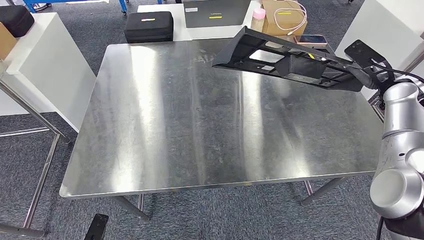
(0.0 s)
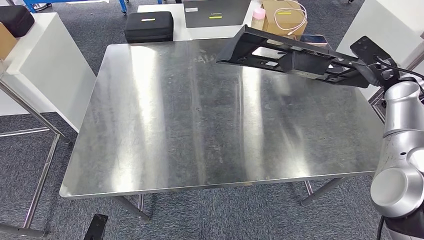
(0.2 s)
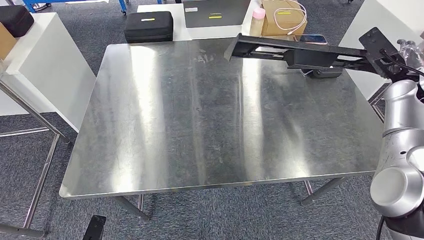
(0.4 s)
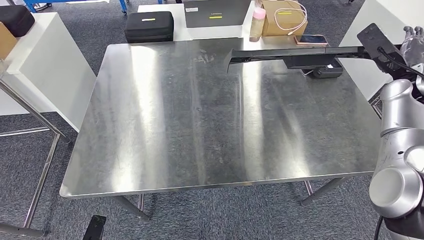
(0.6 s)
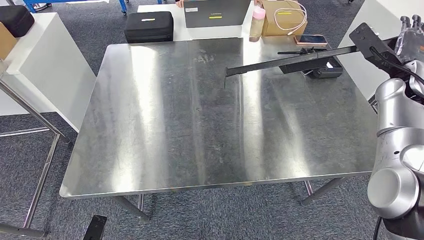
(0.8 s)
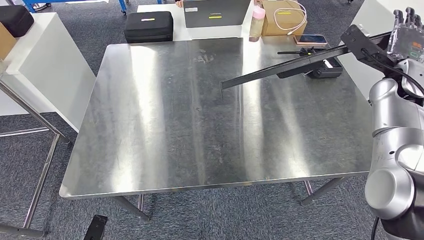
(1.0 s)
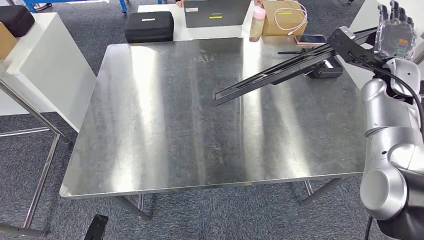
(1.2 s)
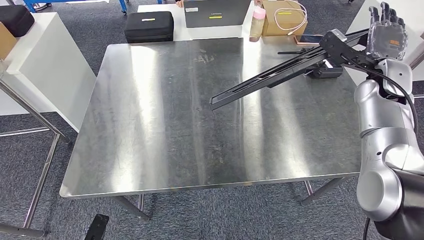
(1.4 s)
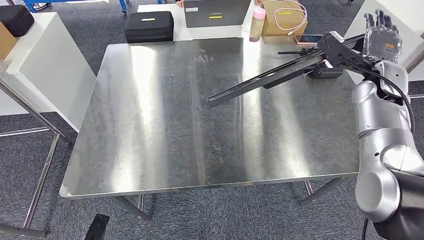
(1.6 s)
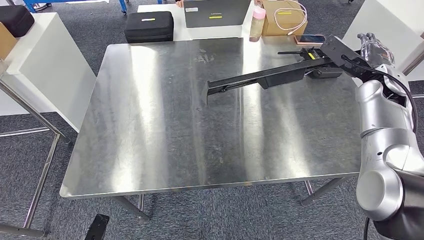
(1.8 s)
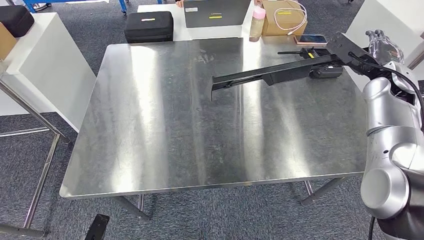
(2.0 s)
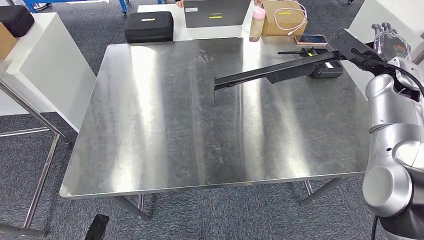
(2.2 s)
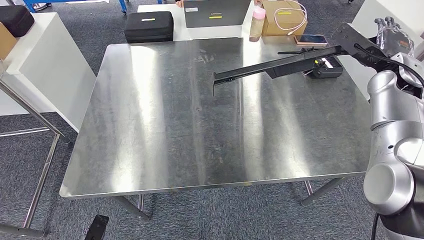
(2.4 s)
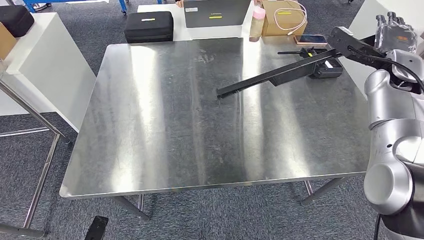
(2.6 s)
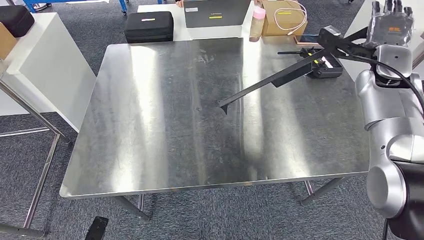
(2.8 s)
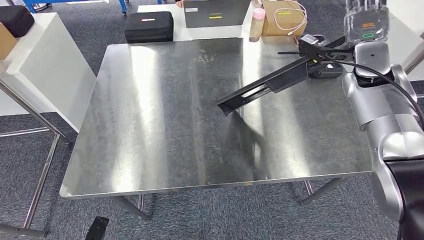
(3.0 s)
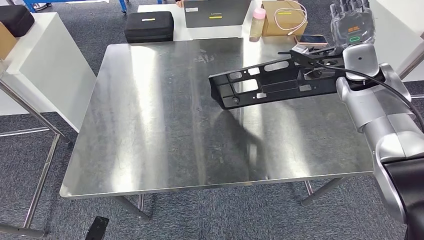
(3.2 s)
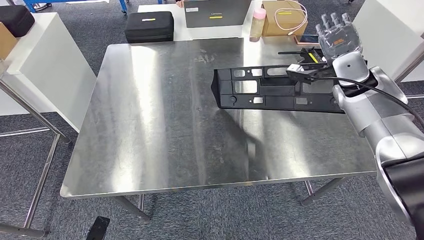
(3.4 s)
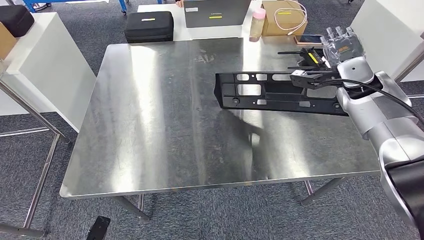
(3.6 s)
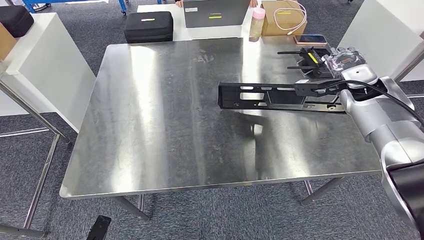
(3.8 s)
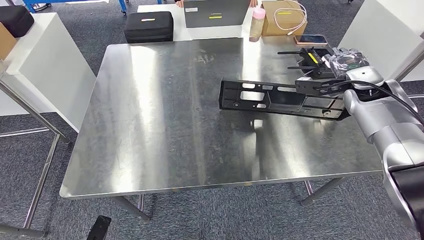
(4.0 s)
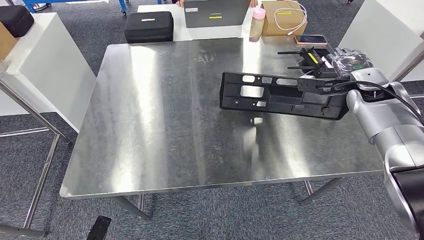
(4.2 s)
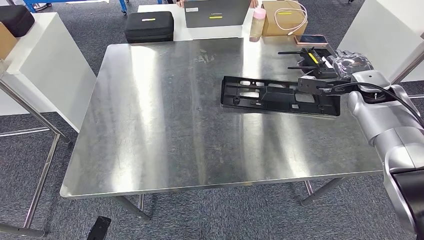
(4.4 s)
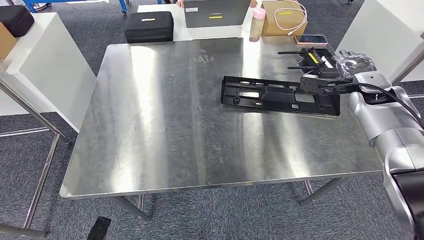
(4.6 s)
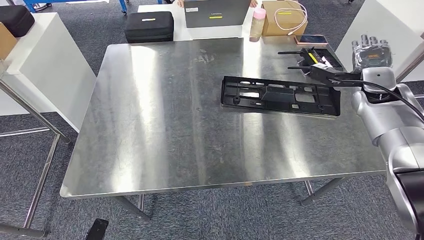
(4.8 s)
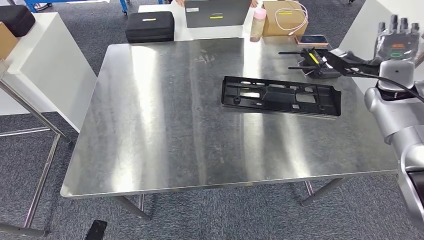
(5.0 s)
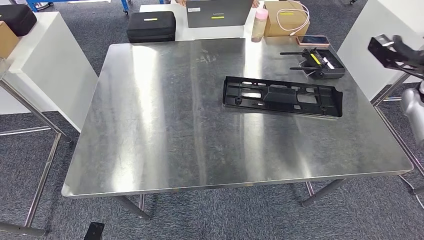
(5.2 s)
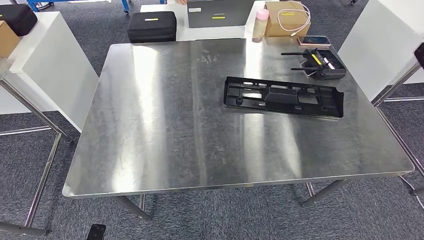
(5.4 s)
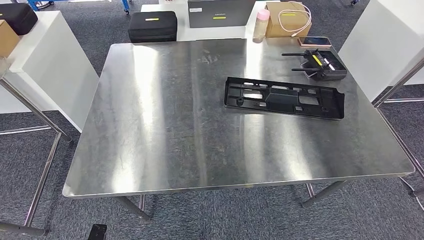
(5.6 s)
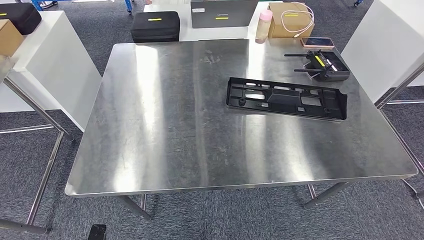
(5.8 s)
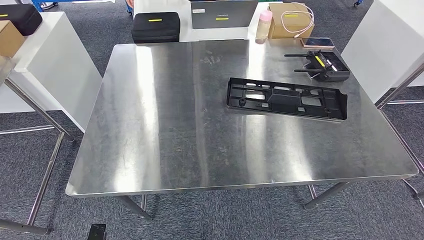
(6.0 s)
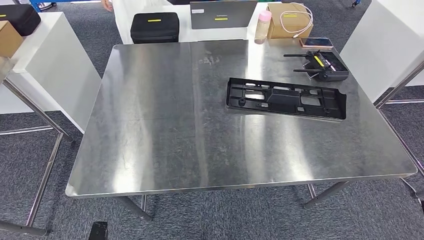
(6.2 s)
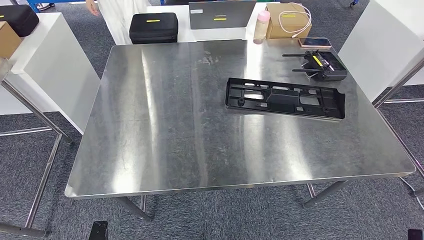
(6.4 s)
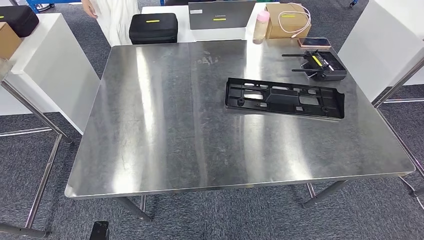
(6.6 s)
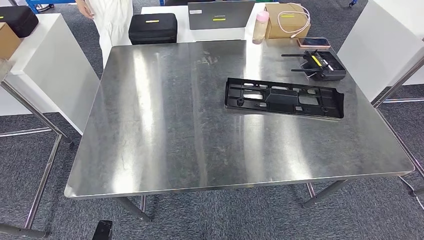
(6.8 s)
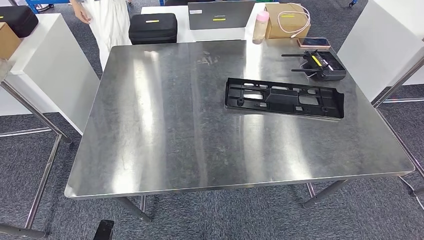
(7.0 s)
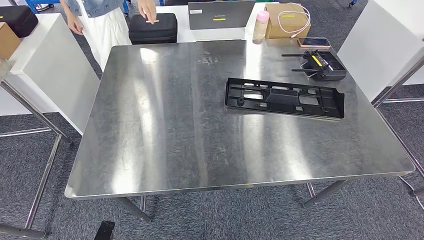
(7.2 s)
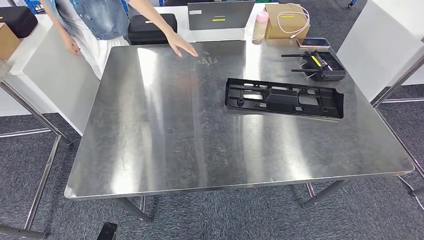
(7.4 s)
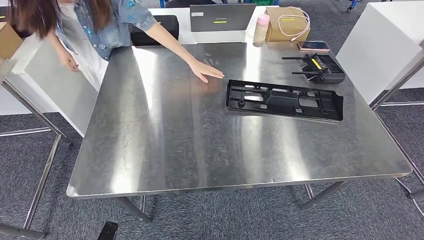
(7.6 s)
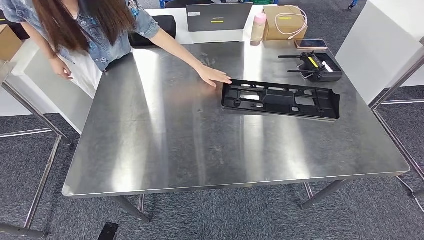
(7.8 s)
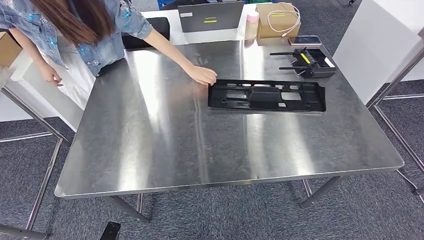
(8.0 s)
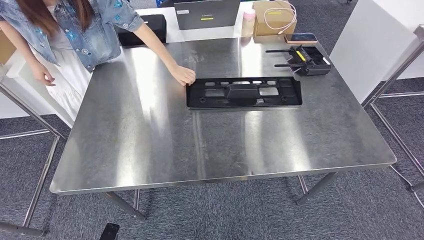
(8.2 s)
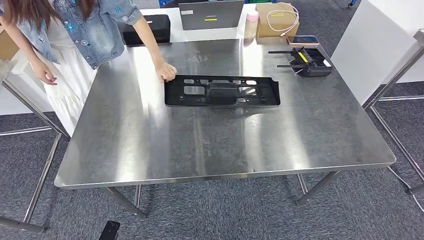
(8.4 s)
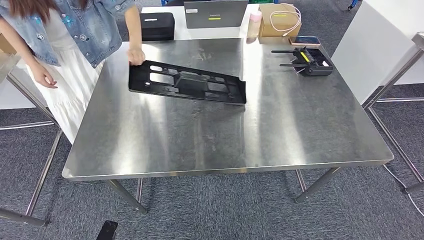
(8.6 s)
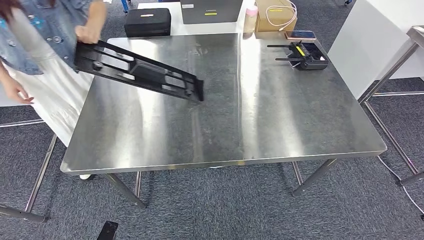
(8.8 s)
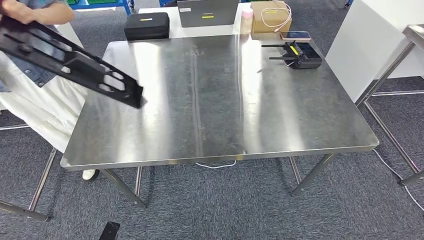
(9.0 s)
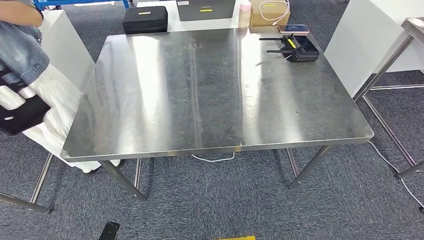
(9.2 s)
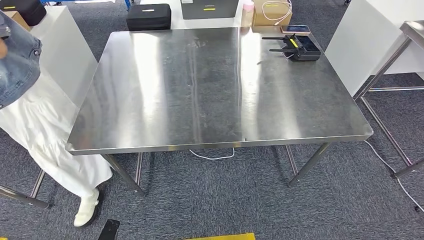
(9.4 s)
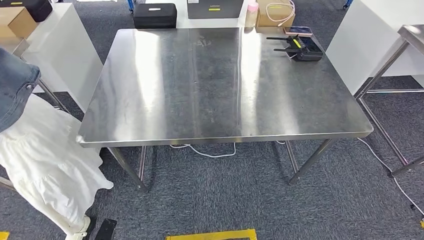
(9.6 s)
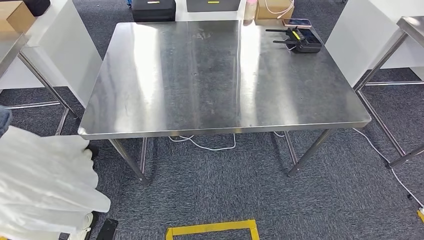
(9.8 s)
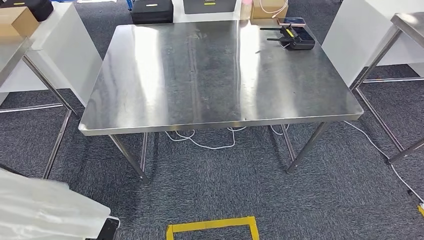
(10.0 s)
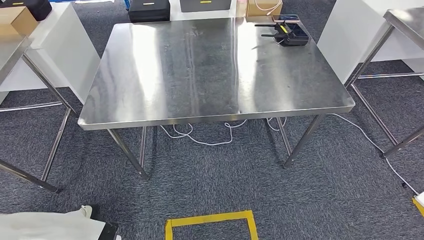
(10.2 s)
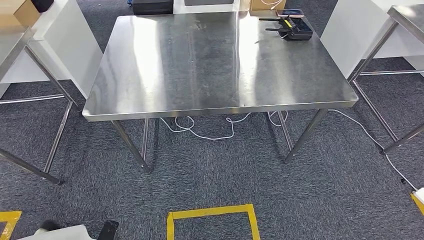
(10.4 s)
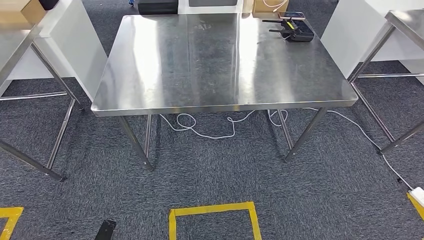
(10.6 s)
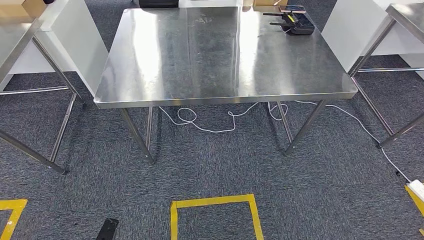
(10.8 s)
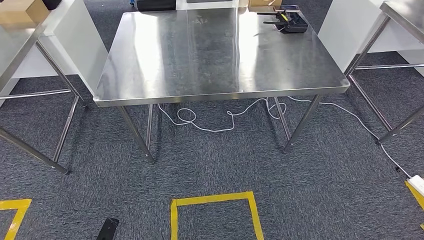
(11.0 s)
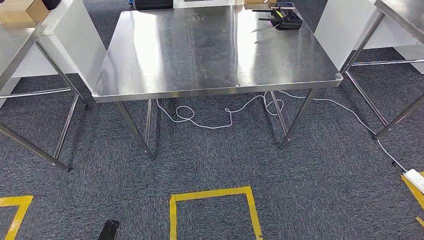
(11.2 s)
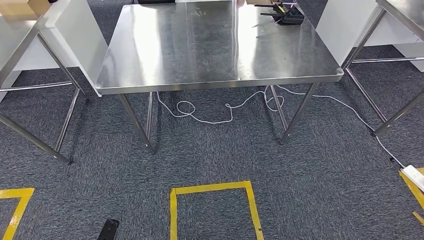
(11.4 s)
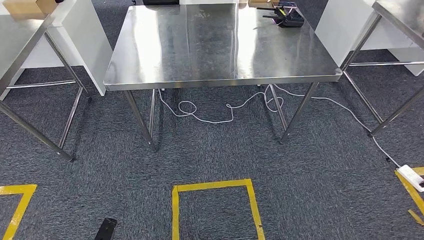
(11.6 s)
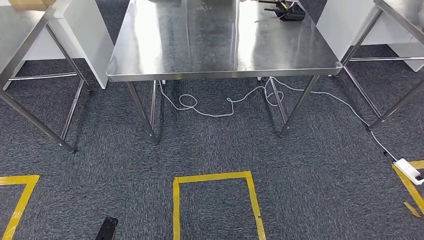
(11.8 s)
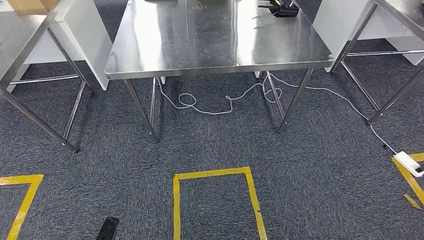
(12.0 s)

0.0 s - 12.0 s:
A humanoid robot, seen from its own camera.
Step, 0.0 s - 5.6 s: Insert the large material into the corresponding slot on the workbench.
3.0 s - 4.4 s: The right hand moves to the right, about 5 cm.

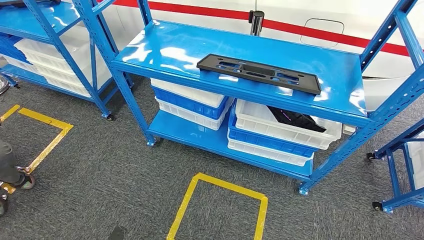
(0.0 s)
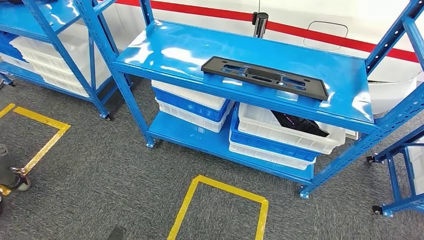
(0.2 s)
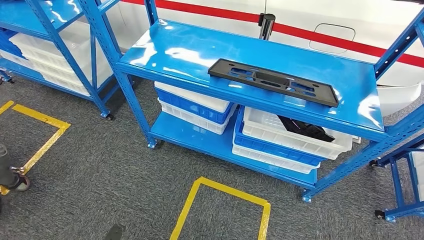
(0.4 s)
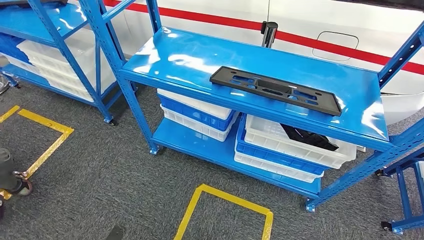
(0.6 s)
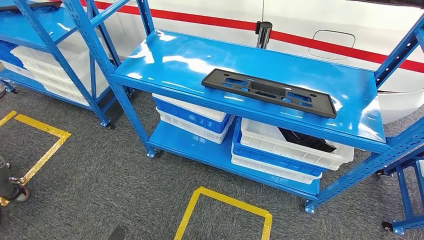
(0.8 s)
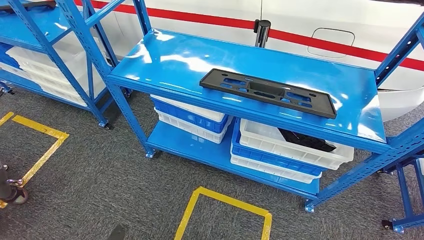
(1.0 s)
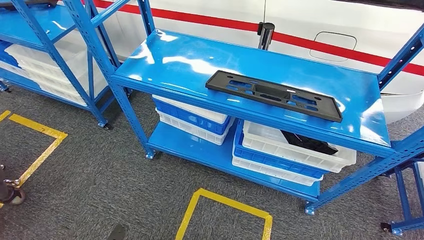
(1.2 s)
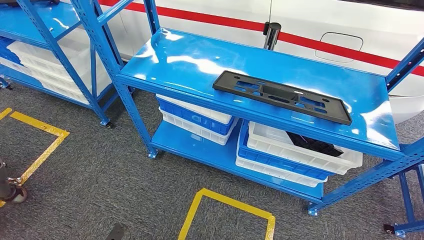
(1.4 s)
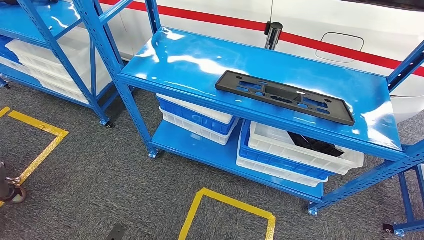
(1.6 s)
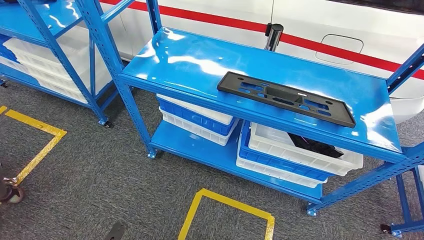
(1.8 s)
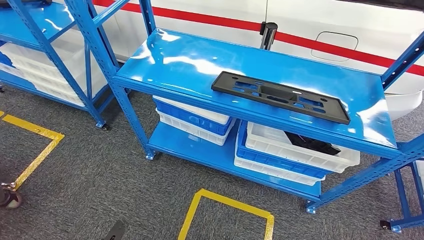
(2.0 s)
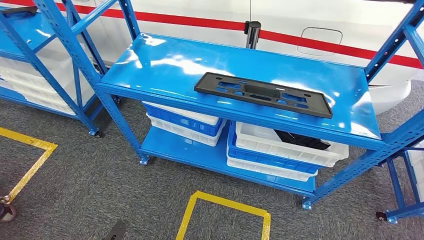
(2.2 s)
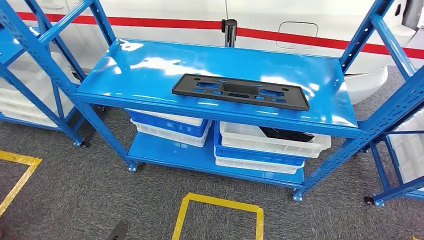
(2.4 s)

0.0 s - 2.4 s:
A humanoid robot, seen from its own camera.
Step, 0.0 s - 2.4 s: Move to the initial position of the shelf.

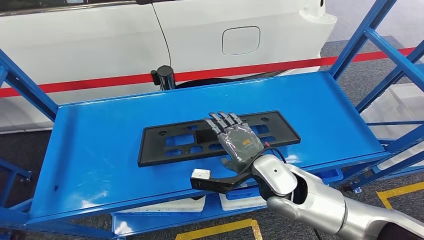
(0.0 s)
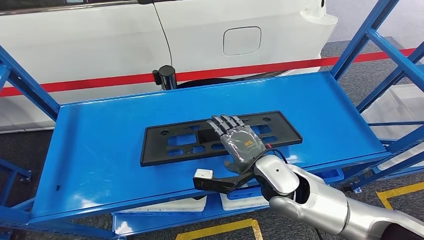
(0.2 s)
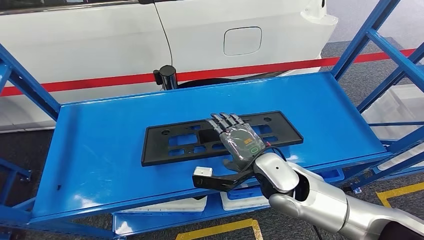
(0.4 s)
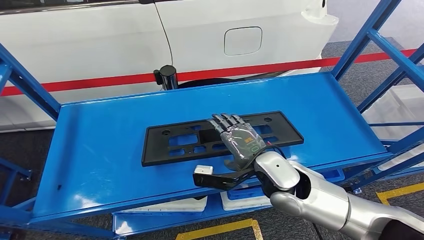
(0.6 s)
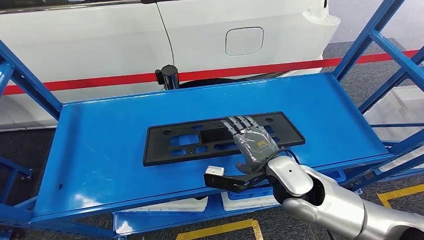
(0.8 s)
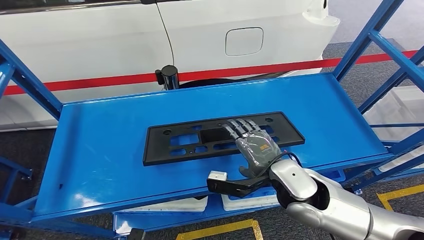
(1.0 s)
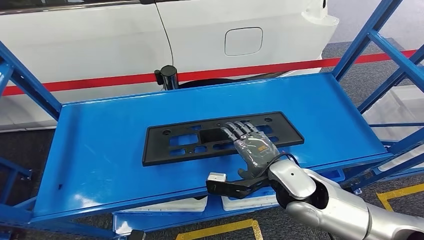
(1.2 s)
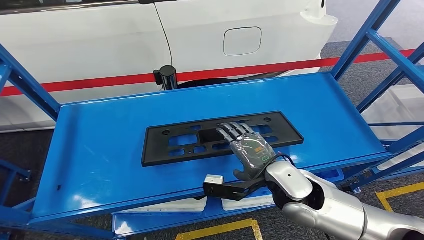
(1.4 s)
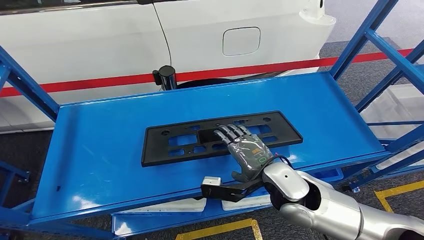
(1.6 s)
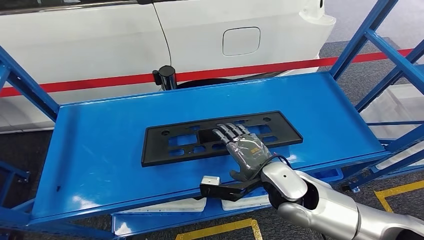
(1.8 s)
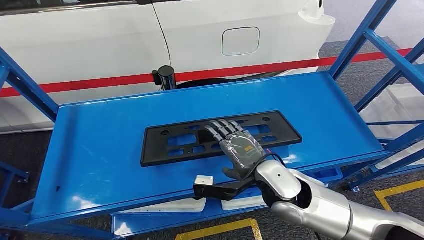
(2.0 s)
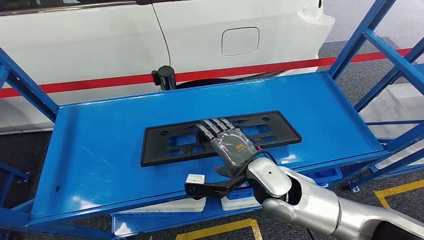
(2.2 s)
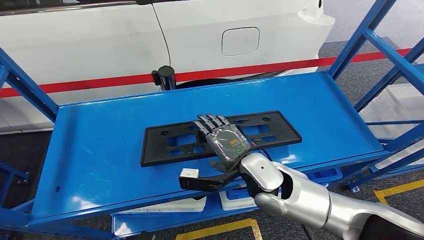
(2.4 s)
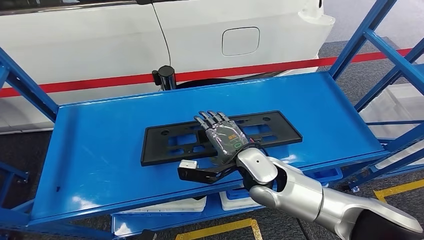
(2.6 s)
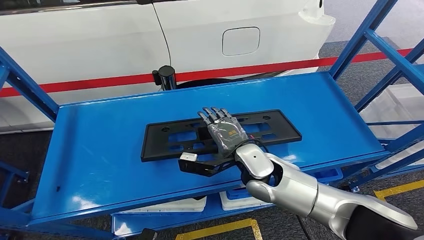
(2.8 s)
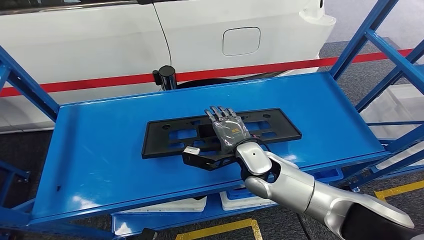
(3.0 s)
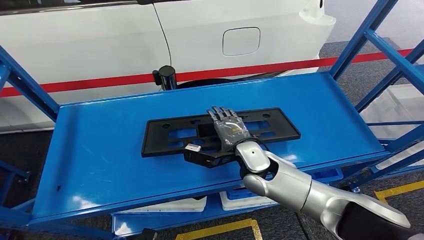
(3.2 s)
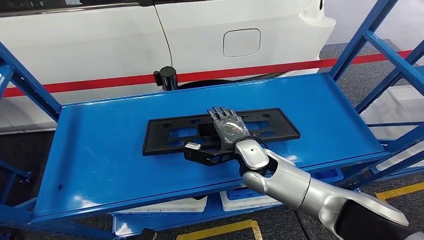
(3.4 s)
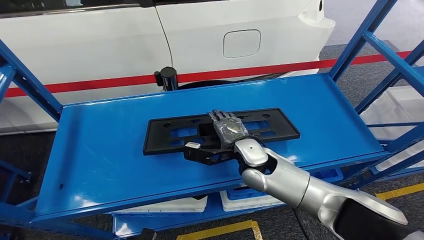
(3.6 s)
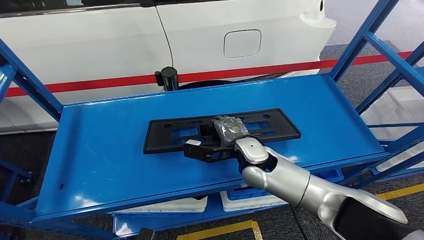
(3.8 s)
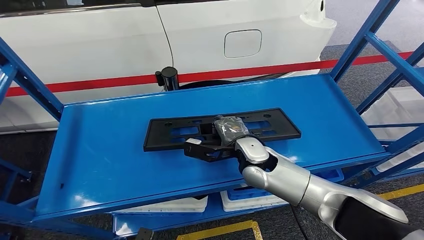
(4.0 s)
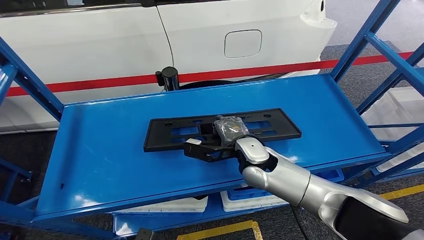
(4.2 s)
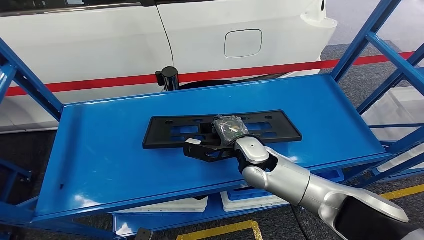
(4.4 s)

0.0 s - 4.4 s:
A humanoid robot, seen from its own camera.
0.0 s - 1.4 s: The hands stay close to where they were, moving slightly.
1.4 s - 3.0 s: The right hand heads forward, covering some 10 cm.
3.0 s - 4.4 s: There are only small adjustments of the hands.
